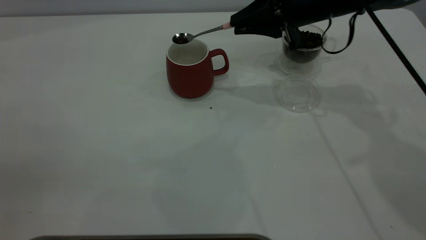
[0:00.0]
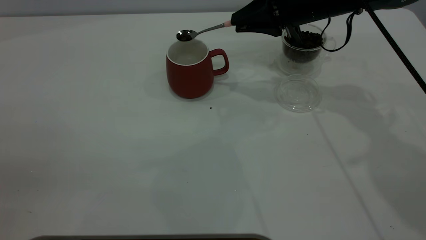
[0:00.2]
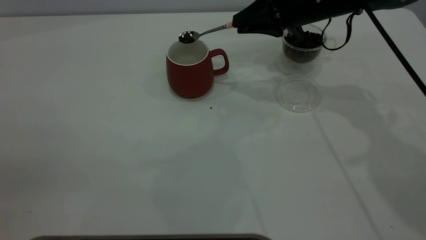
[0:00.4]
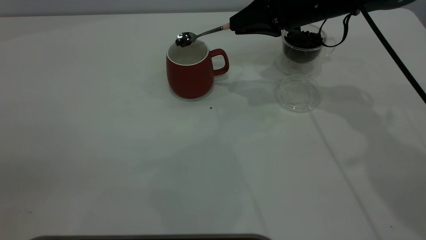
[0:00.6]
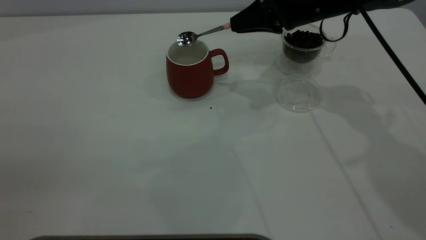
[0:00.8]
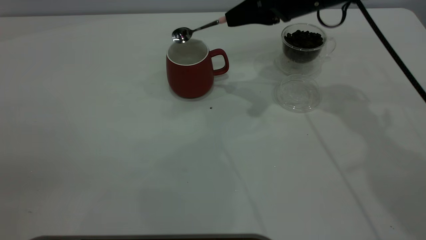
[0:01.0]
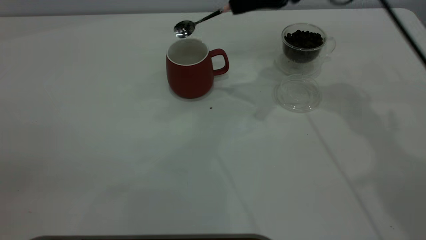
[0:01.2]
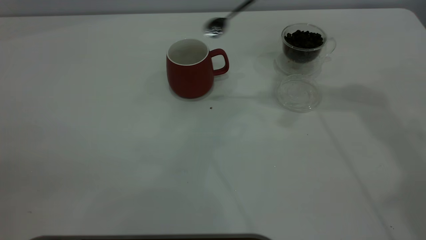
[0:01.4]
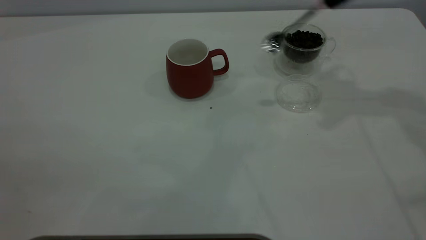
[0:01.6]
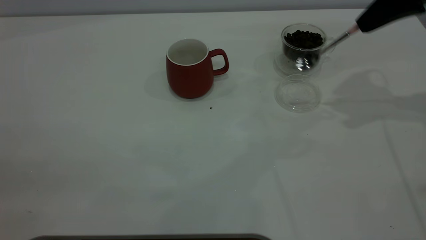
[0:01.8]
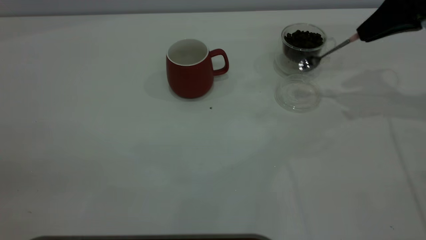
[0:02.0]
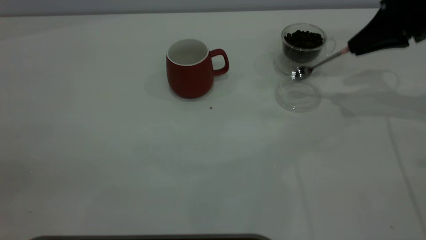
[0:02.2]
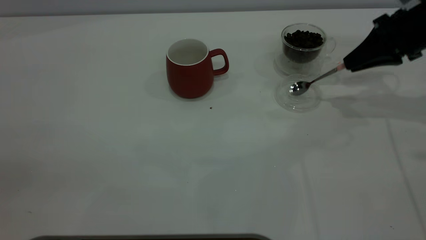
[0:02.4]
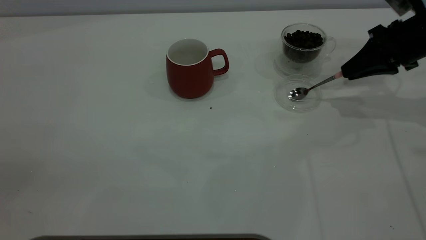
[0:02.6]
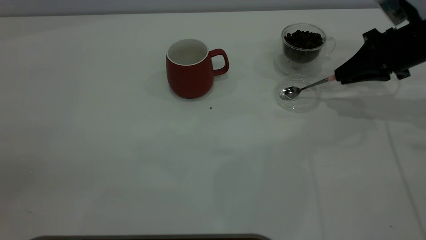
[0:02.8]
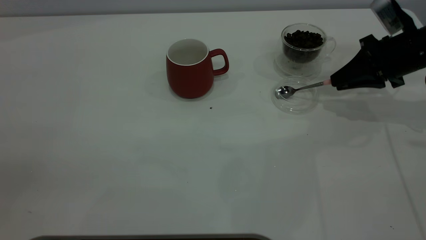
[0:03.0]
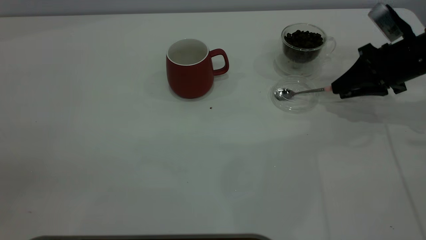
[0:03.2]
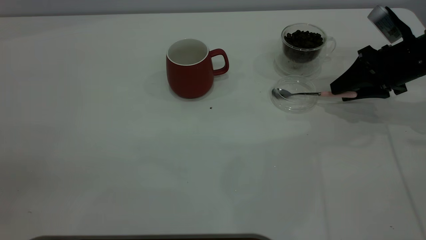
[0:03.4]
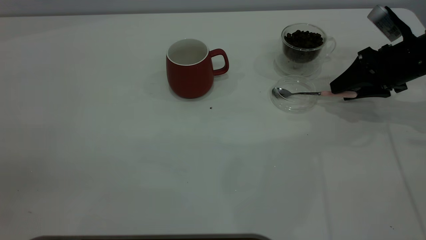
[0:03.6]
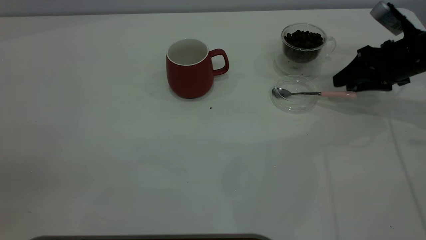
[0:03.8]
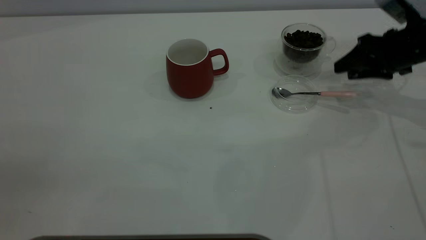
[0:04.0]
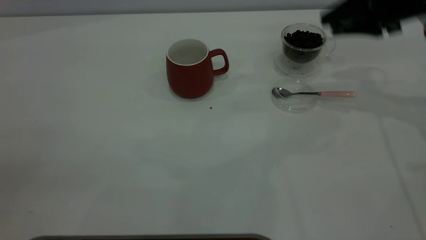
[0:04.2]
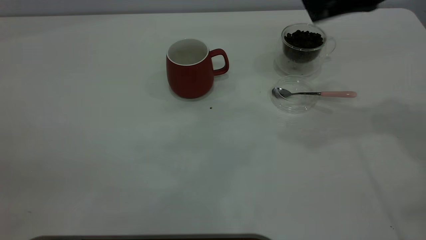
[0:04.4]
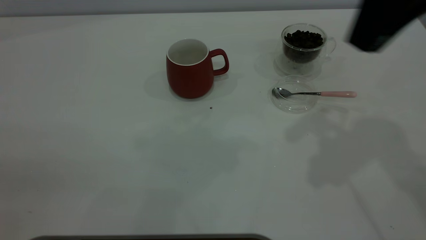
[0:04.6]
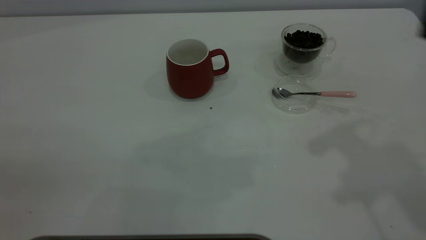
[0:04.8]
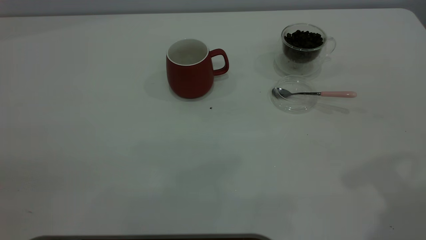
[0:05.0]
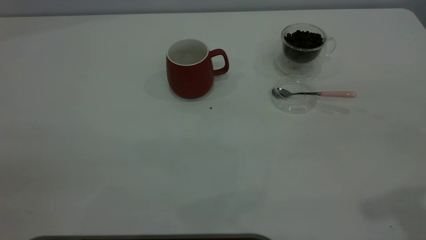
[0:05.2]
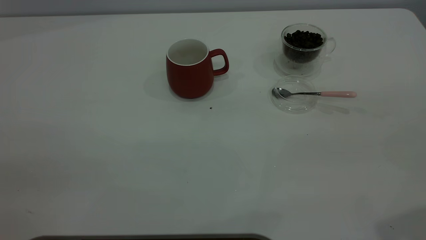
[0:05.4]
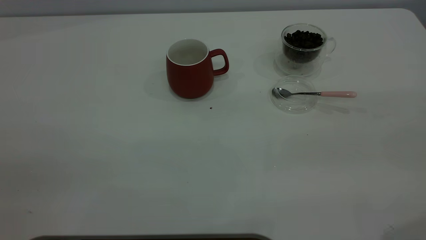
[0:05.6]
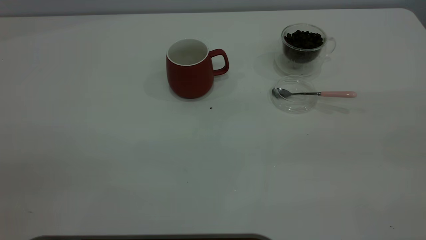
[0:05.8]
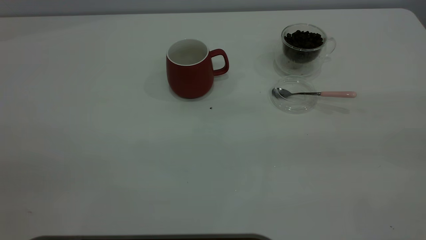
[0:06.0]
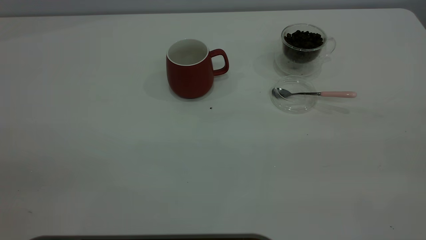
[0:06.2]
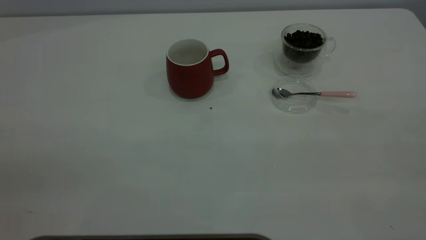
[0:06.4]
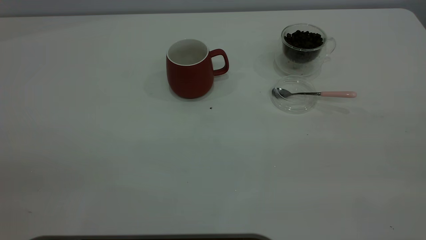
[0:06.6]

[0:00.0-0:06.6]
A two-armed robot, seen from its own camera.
Task of the whole recording: the left gripper place the red cup in the center of the table, the right gripper take the pink spoon from the cup lid and scoop out the coffee beans from the coffee cup and put them into the red cup, the right gripper put the spoon back into the cup lid.
Step, 0:01.4 to 0:03.8: Place the spoon back in its original place.
0:00.0 to 0:01.6: The right gripper goes about 15 cm to the right and upward.
0:01.6 to 0:03.2: The right gripper heads downward, covering about 20 cm, and opens its fingers.
0:03.2 to 0:05.0: The right gripper heads upward and backward, covering some 35 cm.
